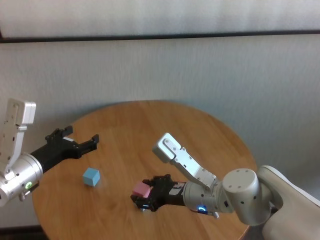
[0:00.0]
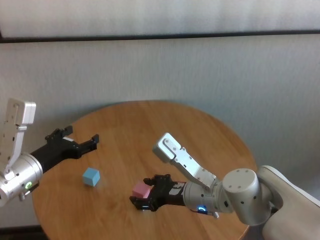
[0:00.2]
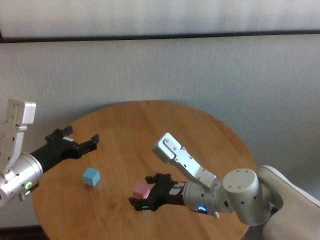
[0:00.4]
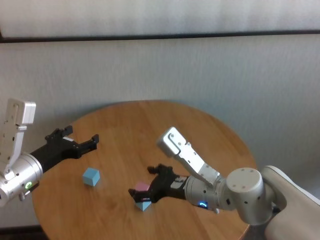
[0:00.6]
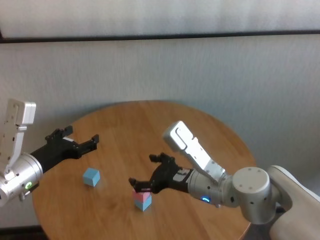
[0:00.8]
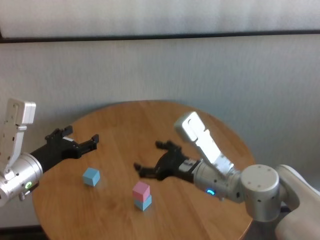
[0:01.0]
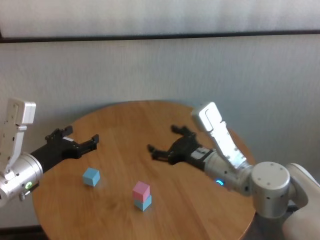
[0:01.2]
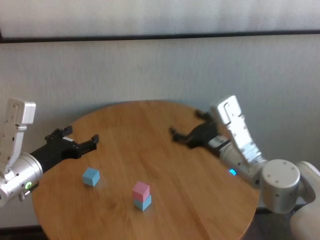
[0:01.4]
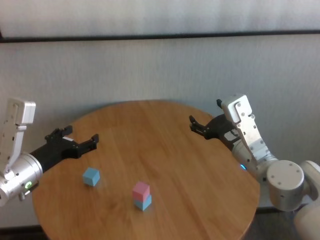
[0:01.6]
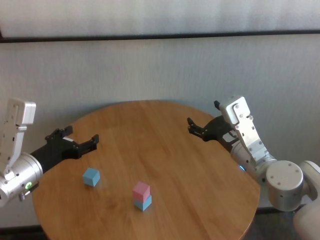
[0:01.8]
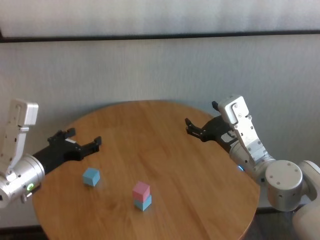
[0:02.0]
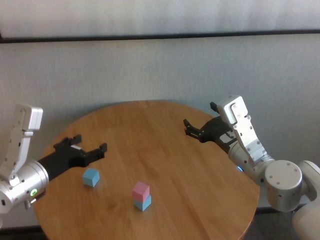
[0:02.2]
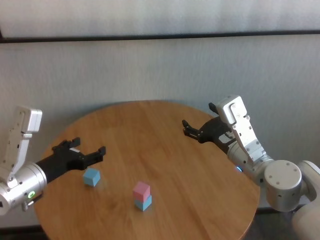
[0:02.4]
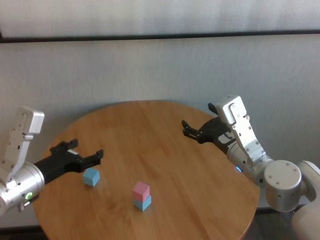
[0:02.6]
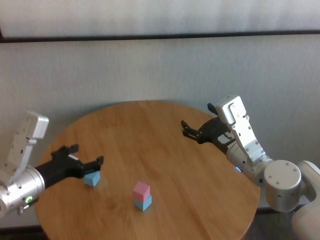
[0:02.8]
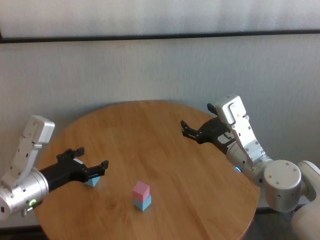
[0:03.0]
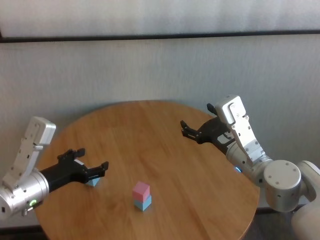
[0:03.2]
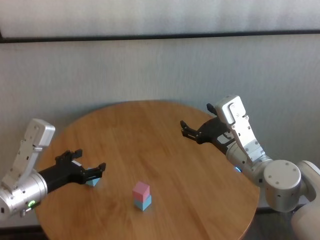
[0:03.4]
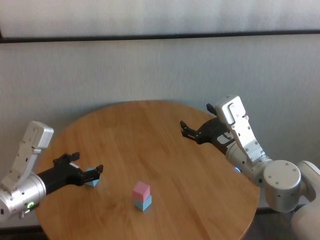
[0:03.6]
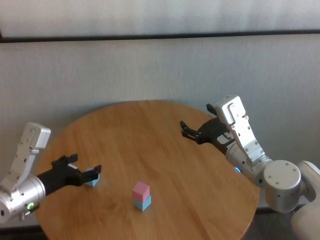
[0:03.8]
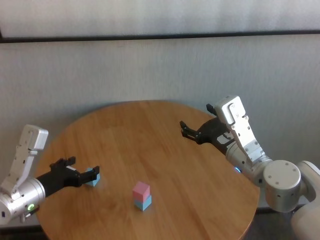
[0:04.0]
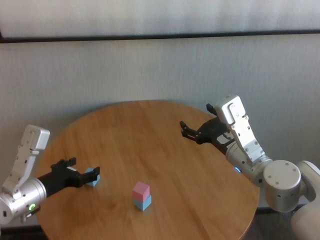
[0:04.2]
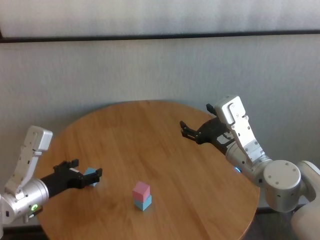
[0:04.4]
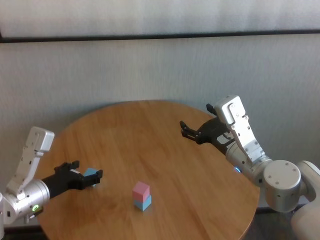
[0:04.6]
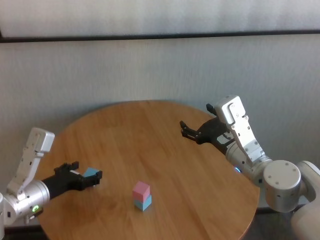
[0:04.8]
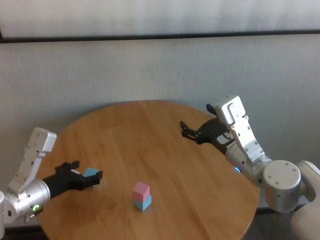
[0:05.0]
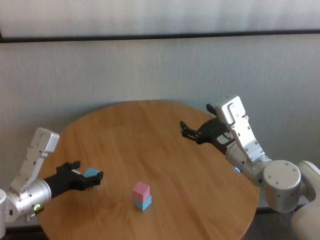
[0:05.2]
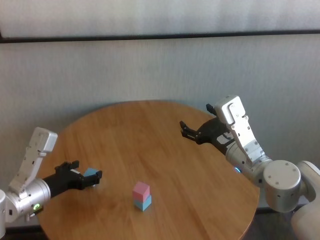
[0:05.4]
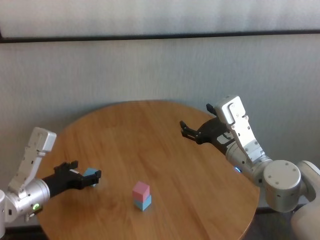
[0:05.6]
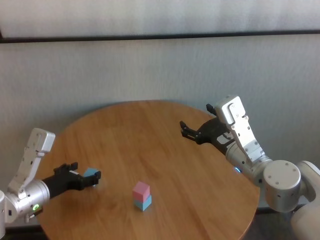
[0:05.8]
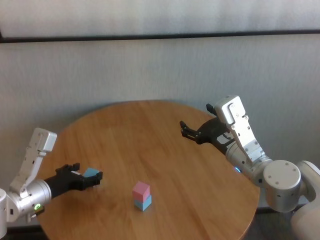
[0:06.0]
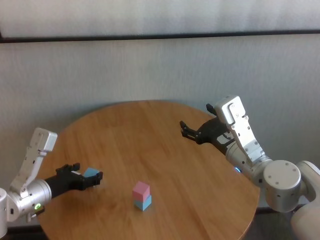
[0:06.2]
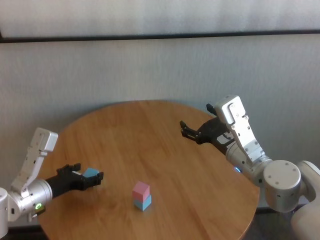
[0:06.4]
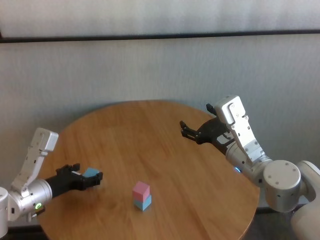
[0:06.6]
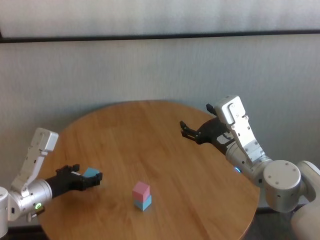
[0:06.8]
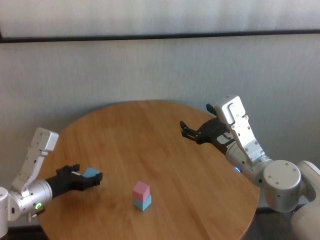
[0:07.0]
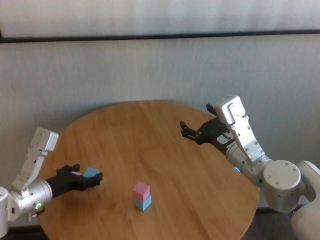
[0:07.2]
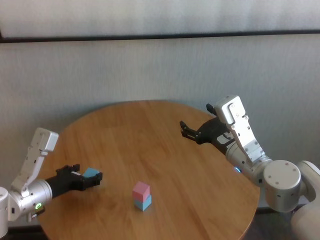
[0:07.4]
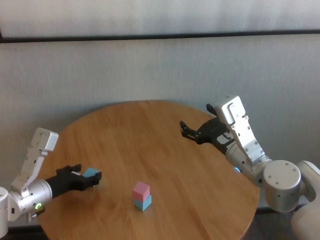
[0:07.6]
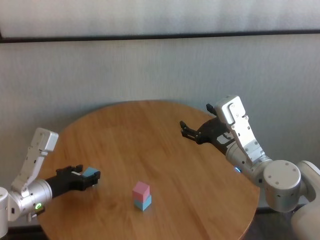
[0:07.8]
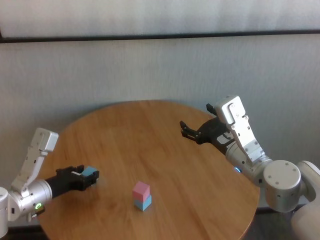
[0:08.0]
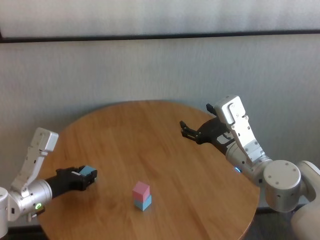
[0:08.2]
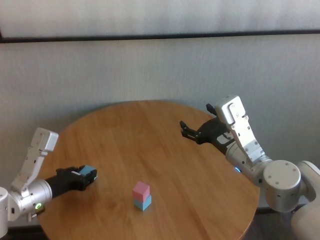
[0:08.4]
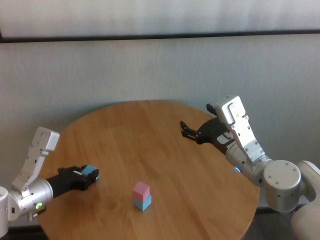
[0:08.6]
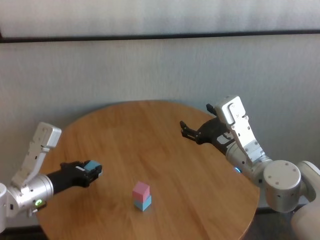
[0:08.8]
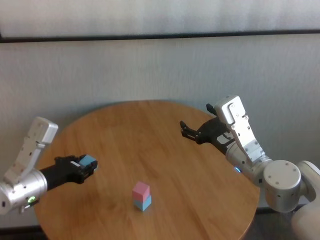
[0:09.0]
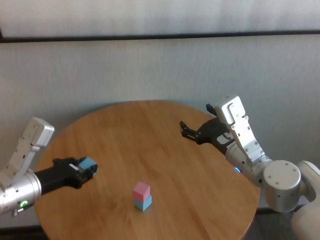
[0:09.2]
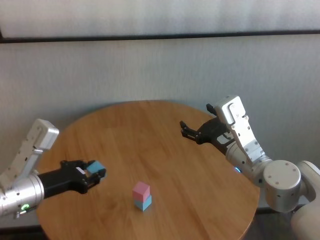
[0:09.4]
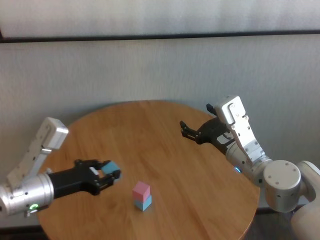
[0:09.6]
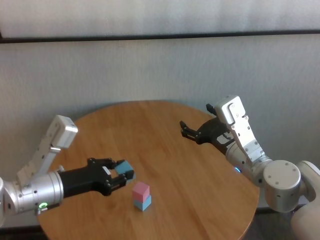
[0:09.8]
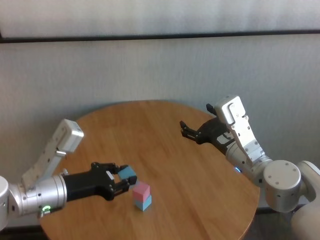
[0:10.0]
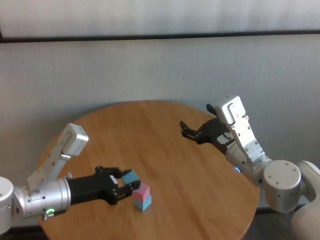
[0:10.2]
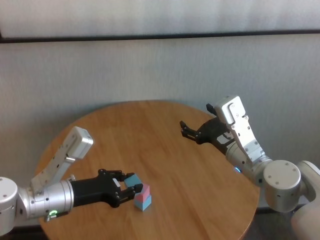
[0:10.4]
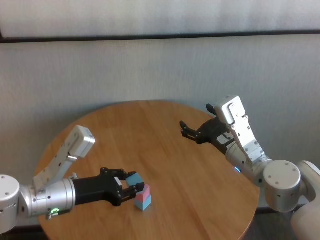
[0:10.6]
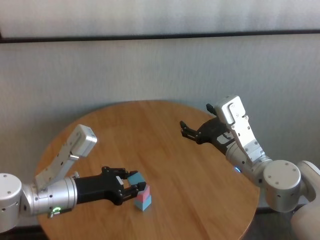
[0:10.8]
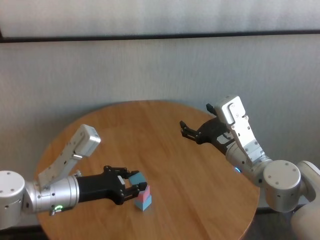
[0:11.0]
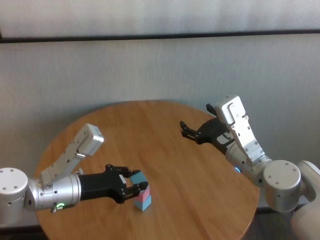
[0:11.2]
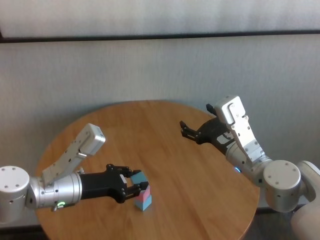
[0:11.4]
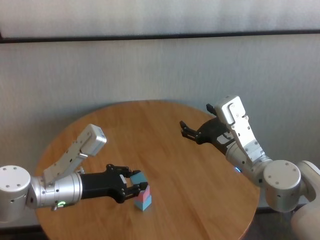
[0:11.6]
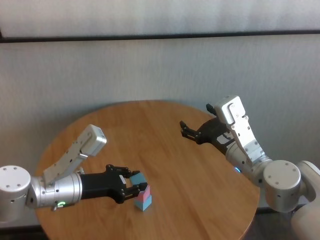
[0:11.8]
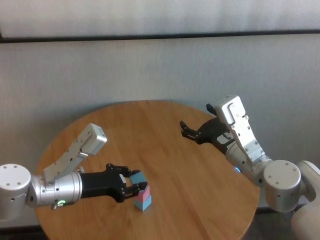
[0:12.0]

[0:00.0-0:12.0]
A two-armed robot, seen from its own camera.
Task of the whole recording: stack building blocks on the table.
Step, 0:00.6 to 0:08.2: Grasp the blue building block with left gripper.

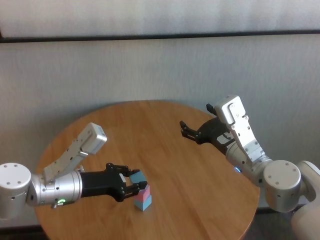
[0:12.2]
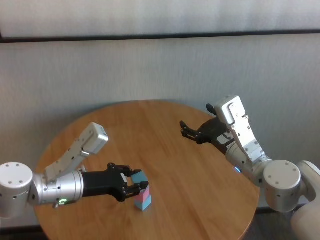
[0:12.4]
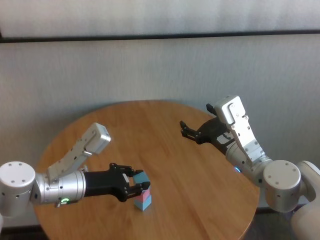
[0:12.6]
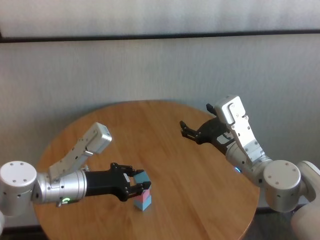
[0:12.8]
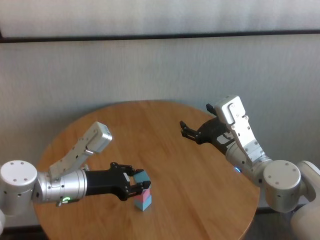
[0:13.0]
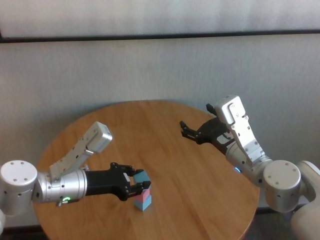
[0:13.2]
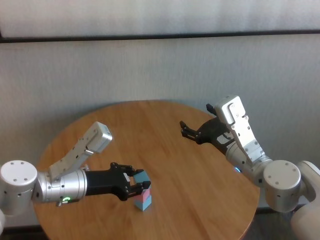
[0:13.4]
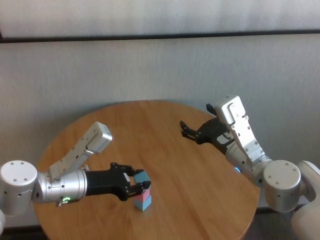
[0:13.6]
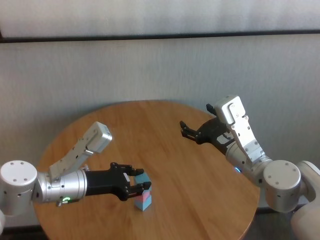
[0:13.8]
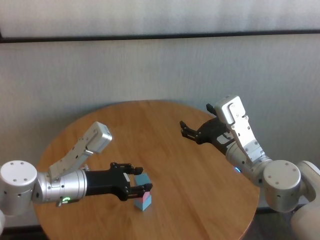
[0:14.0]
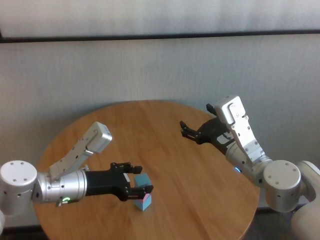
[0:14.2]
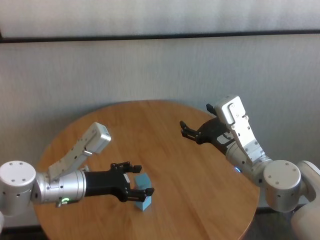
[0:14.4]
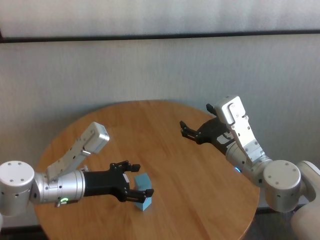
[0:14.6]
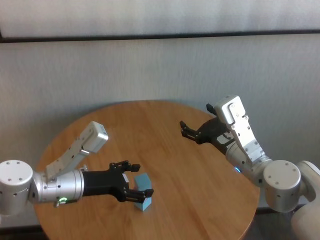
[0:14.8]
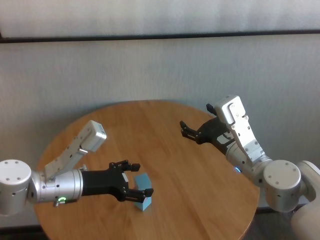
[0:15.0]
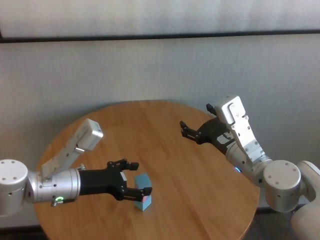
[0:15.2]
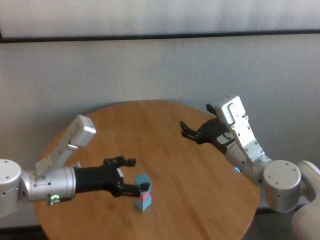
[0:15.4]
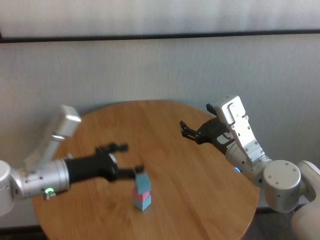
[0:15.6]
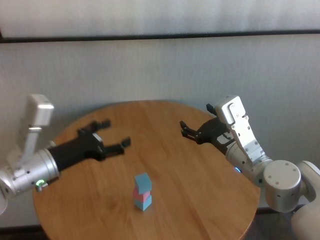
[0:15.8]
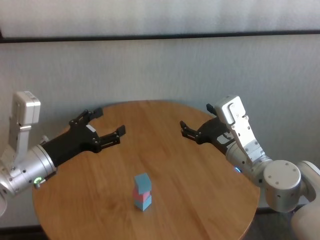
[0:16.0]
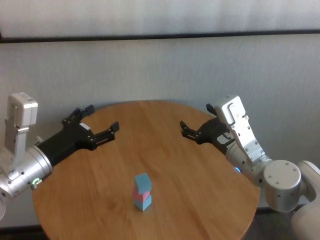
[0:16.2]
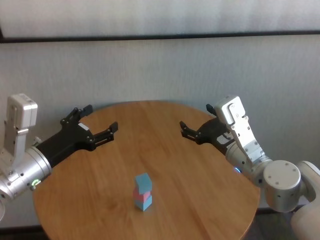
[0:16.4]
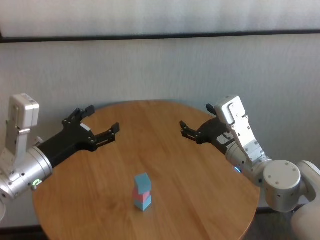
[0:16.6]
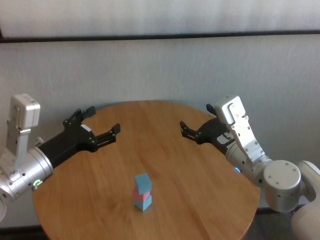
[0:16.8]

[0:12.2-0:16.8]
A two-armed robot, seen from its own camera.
Task of the whole recording: stack building blocks on the table.
Step, 0:12.2 to 0:14.2: Place the blue building block on the blue building blocks with left gripper.

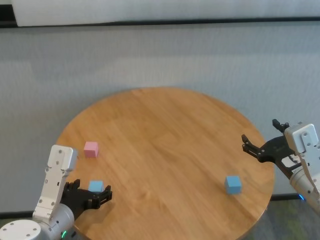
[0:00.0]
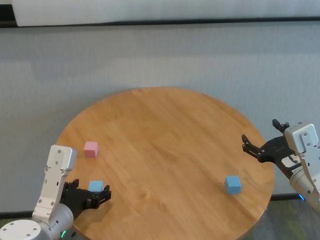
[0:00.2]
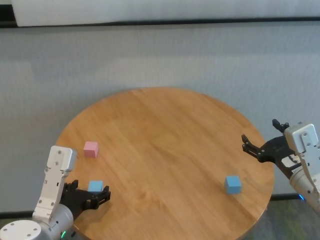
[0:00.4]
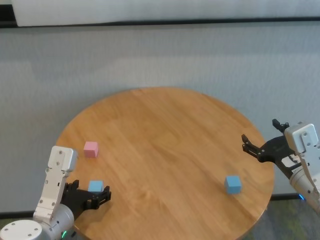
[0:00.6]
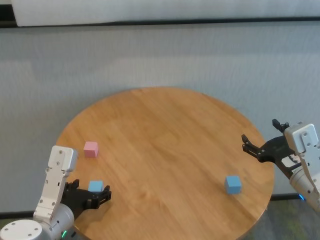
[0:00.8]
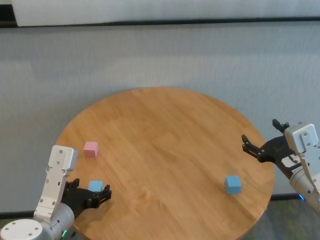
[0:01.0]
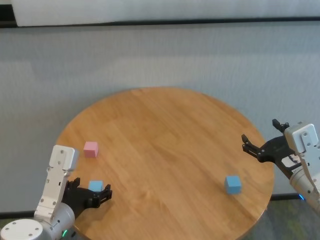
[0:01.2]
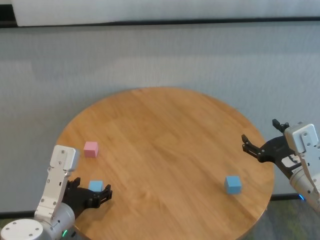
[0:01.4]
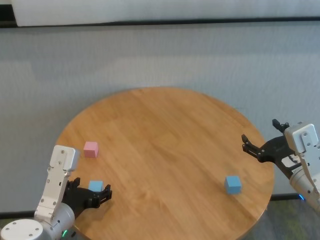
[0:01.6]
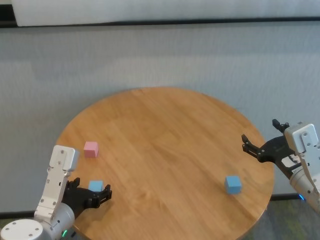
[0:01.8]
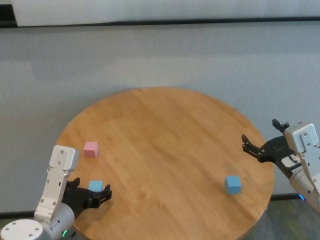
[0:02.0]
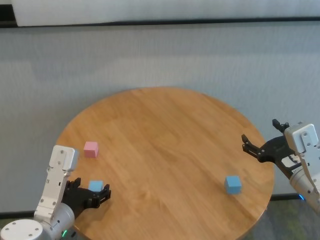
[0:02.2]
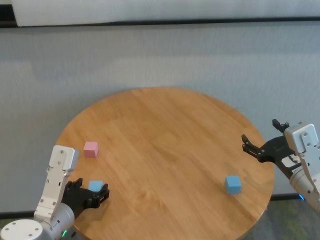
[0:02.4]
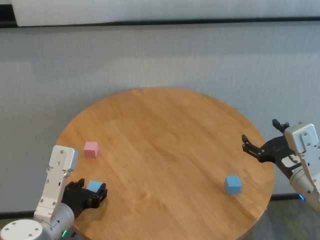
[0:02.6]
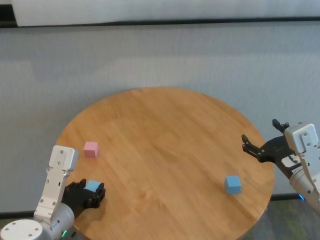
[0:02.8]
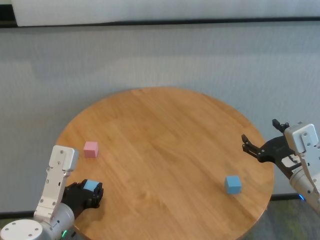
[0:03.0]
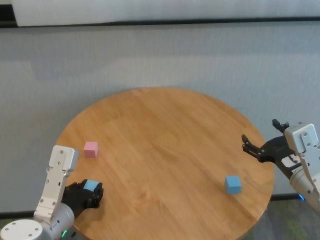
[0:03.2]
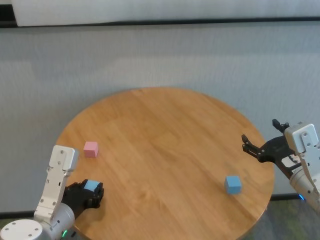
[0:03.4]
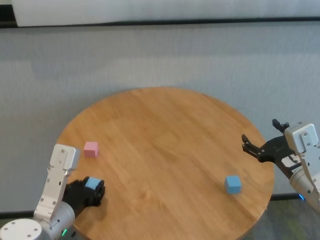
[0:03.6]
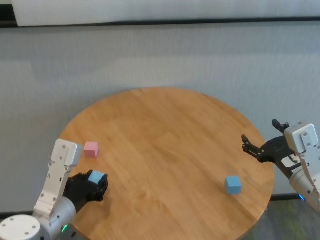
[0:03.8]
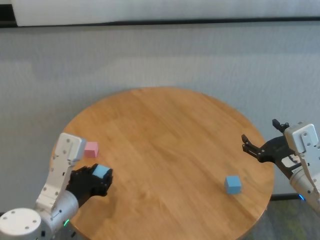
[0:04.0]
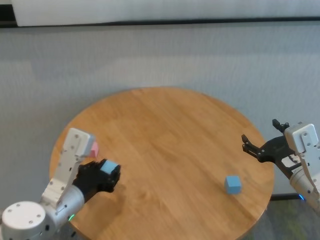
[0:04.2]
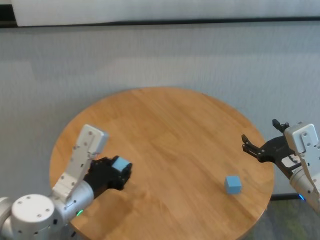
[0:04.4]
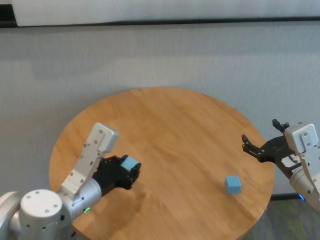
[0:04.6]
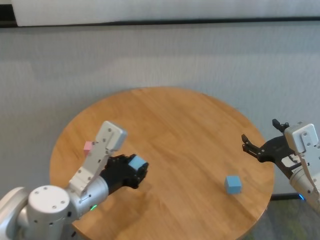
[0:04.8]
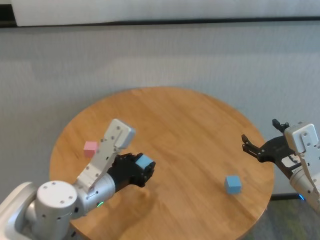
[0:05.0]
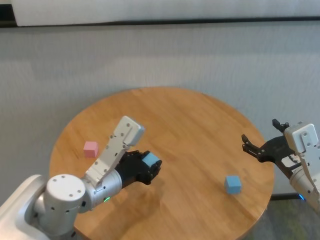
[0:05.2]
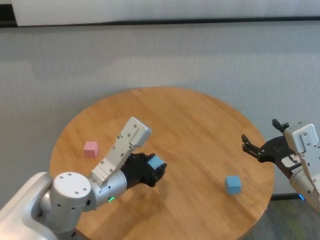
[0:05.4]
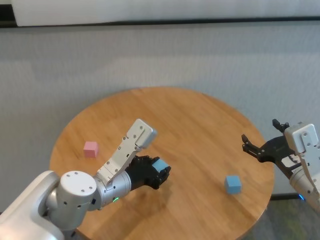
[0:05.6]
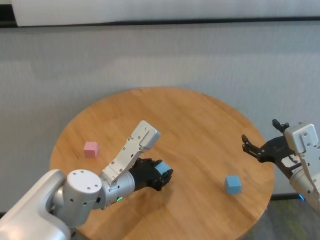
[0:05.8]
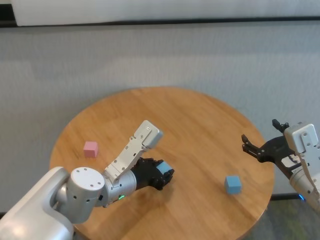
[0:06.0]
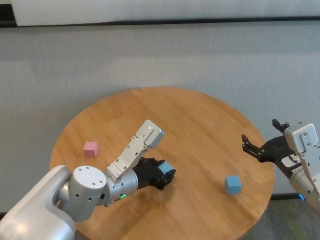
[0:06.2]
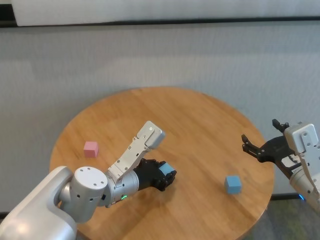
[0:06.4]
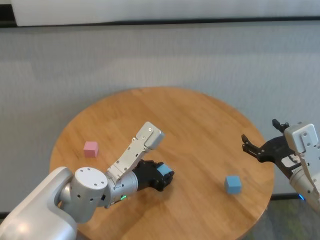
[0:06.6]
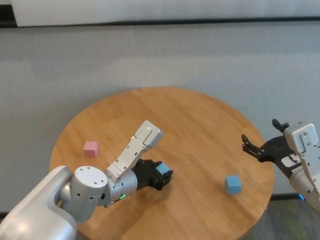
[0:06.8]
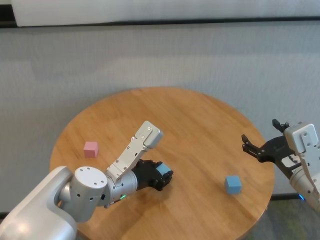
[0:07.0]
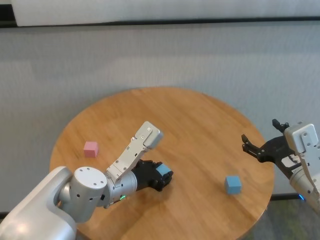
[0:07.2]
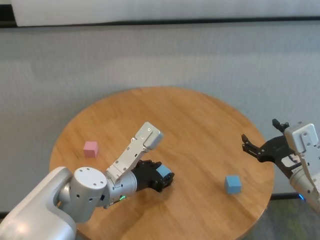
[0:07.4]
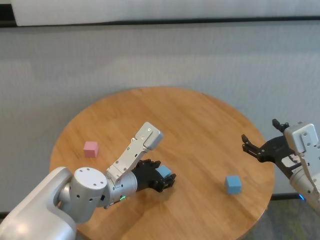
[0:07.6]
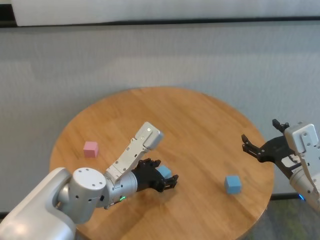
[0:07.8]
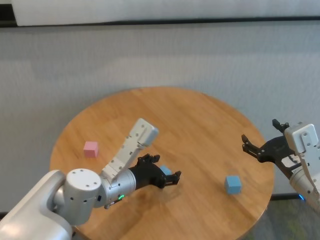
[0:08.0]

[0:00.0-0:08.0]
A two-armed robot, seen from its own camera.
Task of the whole recording: stack building blocks on the table.
Step, 0:03.2 to 0:07.8: Place the blue building block in the center of table with left gripper.
